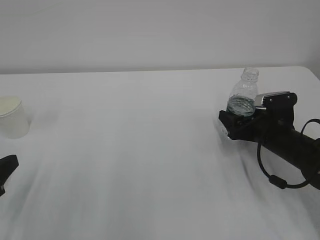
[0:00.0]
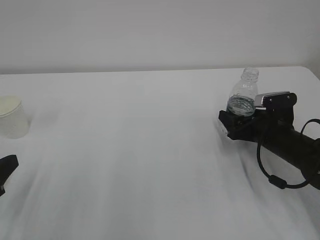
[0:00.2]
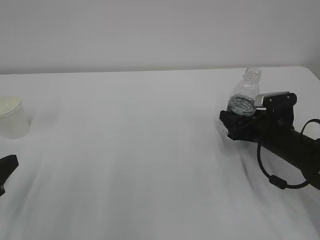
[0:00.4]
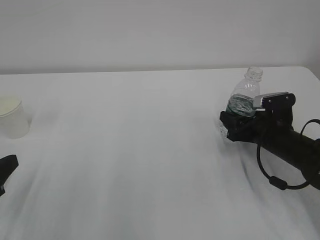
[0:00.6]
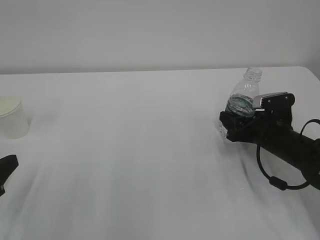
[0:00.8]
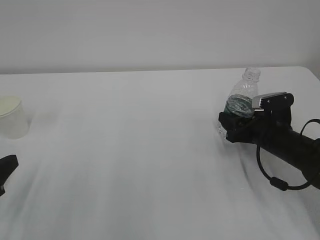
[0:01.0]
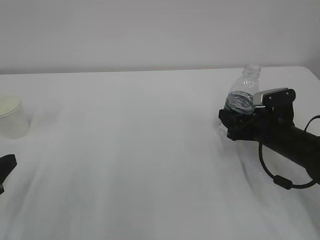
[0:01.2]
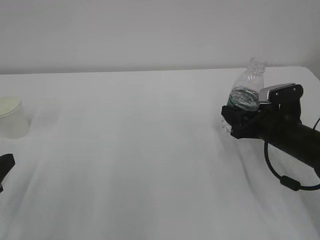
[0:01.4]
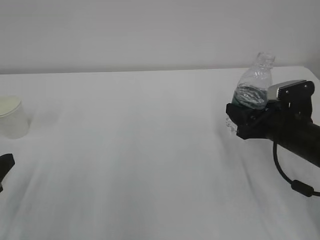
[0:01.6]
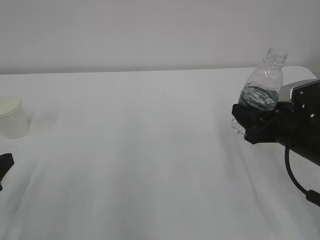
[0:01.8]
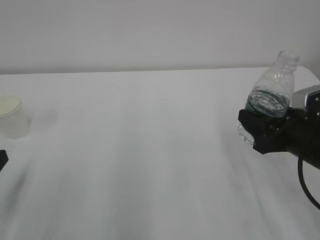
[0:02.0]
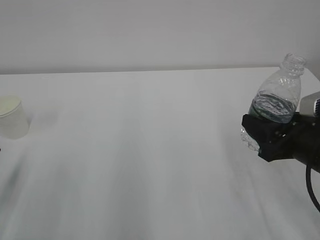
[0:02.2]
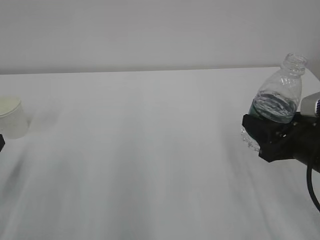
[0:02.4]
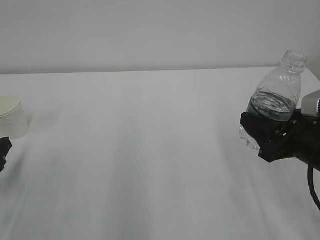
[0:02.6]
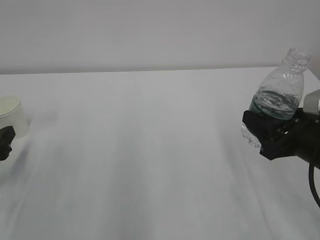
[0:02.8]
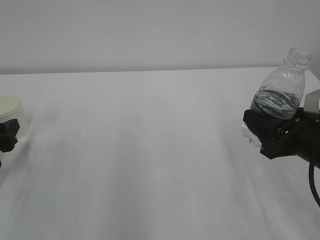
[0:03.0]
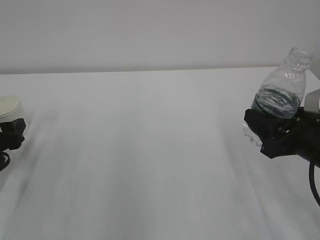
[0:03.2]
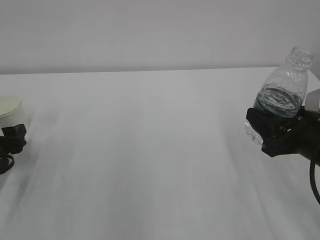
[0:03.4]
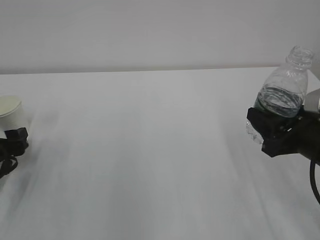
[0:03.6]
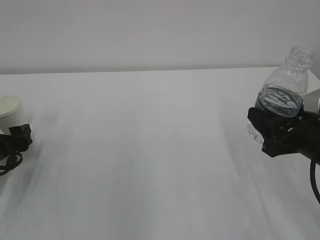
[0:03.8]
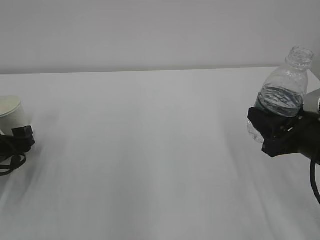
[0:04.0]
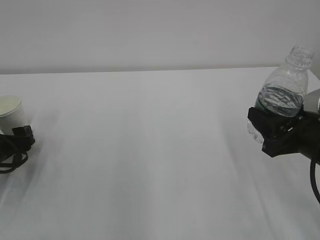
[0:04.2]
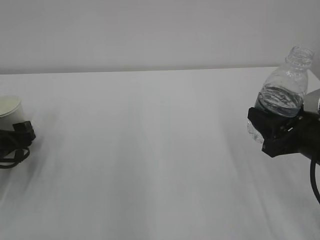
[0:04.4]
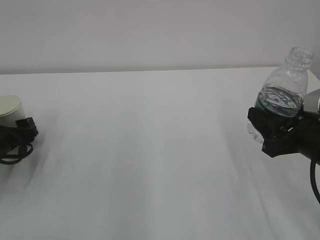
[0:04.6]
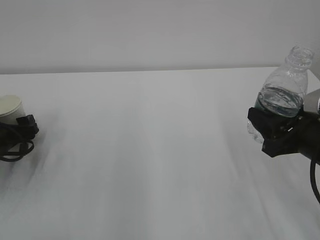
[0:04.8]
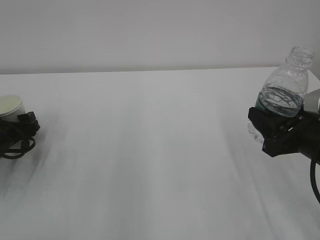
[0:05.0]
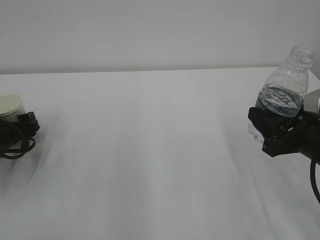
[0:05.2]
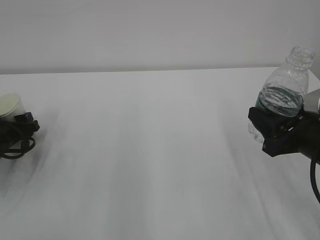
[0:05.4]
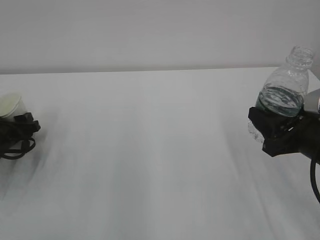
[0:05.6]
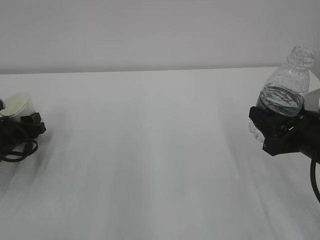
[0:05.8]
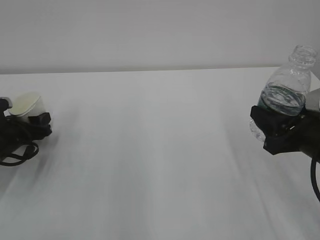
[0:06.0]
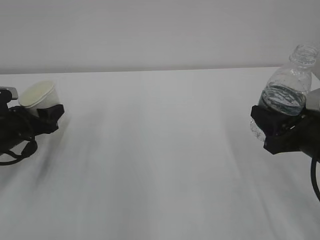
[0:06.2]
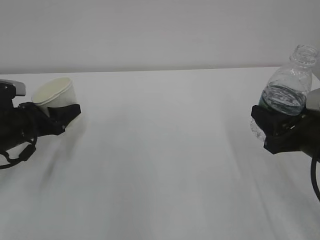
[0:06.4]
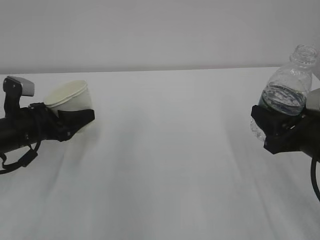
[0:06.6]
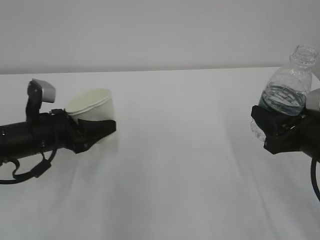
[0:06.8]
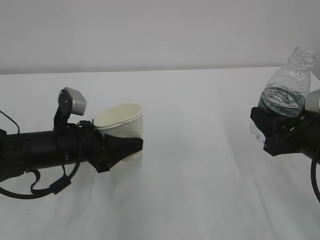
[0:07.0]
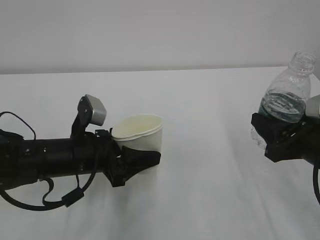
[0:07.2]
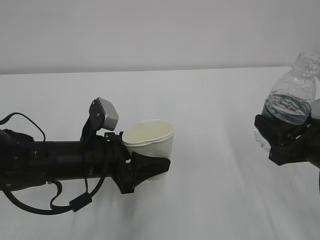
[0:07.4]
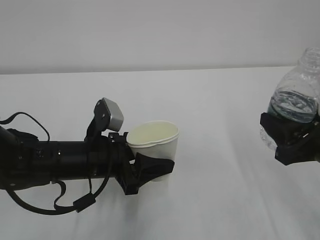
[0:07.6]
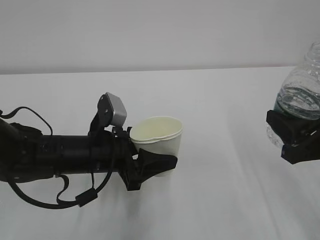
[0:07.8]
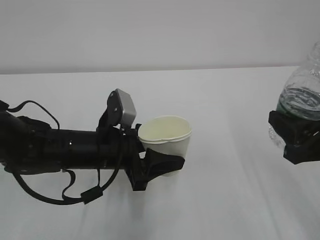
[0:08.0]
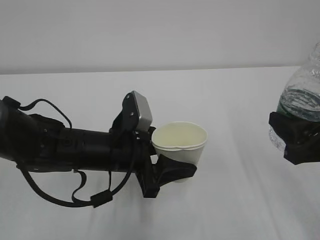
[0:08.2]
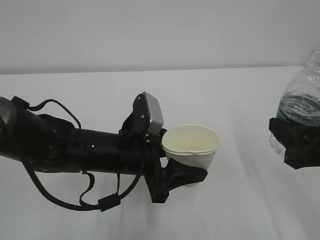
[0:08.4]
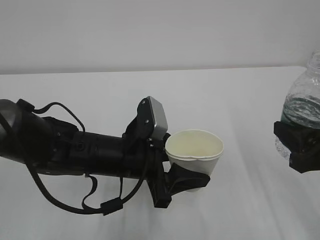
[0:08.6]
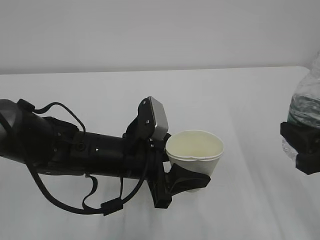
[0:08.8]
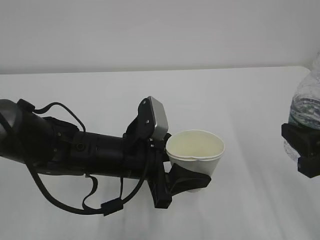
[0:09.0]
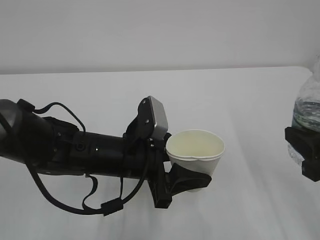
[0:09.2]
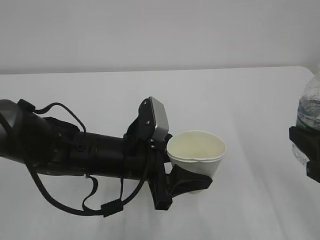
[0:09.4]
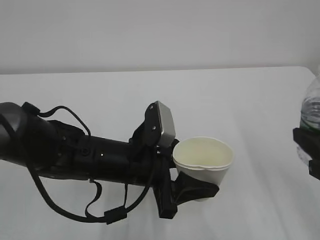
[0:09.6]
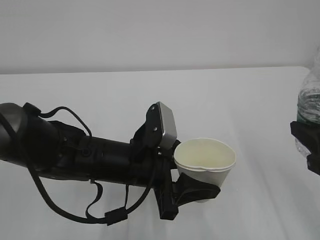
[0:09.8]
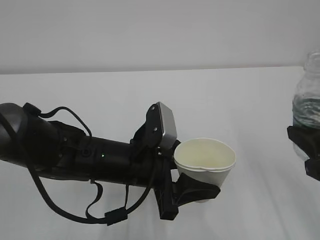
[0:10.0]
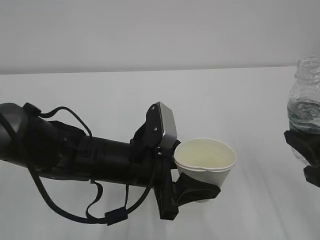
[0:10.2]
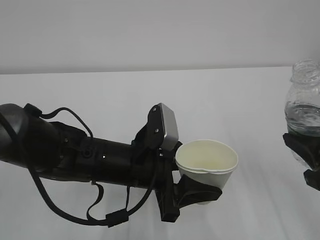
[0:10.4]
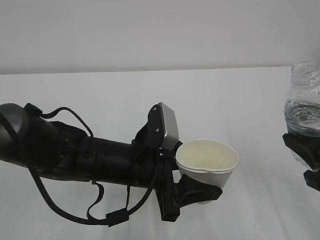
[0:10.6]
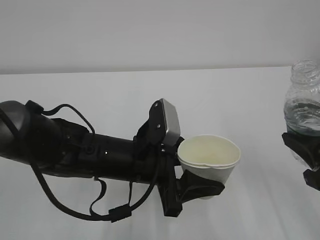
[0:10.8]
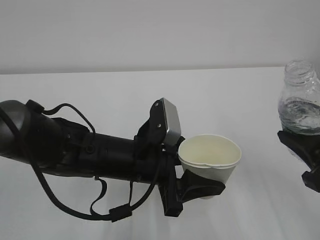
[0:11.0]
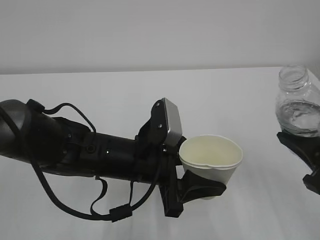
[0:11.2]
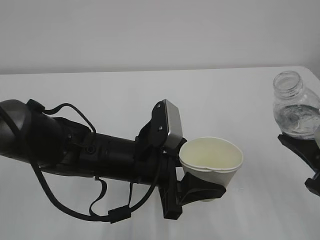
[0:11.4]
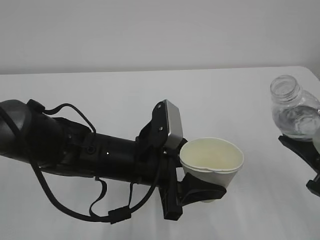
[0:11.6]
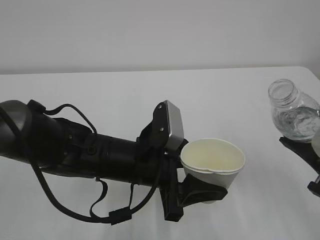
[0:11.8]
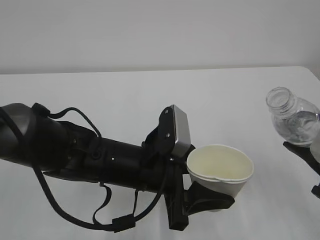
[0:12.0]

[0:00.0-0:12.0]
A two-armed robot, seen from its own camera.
0:00.0 to 0:01.6: The right gripper shifts by about 5 cm, and closes its fingers.
0:01.6 to 0:03.0: The right gripper shifts roughly 10 cm backward. Meanwhile the left gripper goes roughly 10 cm forward, and opens.
0:03.0 to 0:04.4: The left gripper goes some 10 cm forward and downward.
0:04.4 to 0:06.0: The left gripper closes its fingers.
0:06.0 to 0:07.6: The left gripper heads to the right and backward, covering approximately 20 cm.
0:07.6 to 0:09.0: The left gripper heads to the right, covering about 5 cm.
0:09.0 to 0:10.4: There are only small adjustments of the grippers.

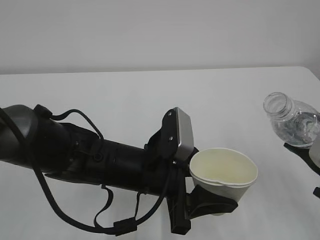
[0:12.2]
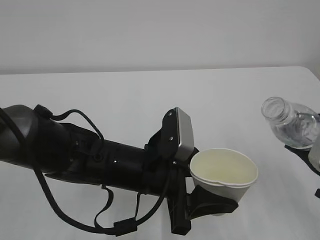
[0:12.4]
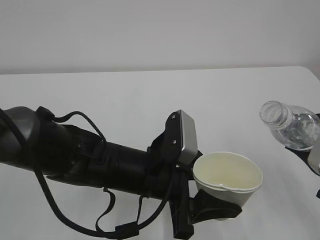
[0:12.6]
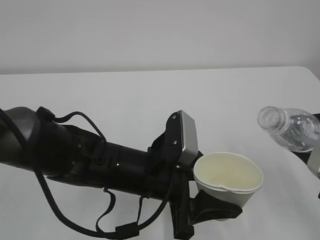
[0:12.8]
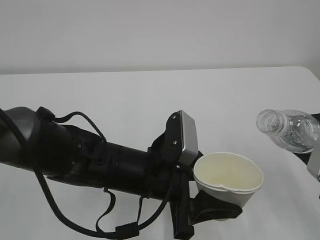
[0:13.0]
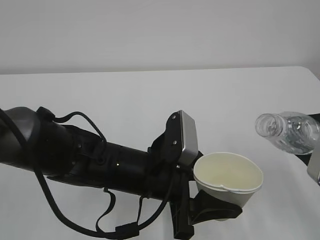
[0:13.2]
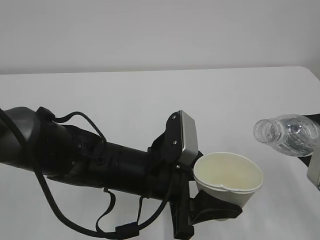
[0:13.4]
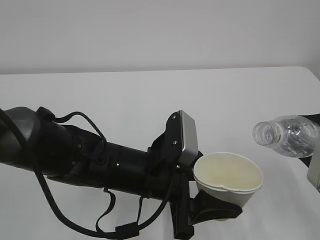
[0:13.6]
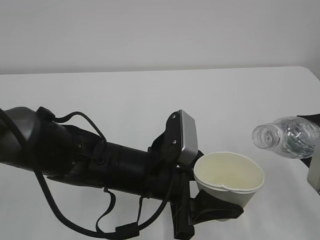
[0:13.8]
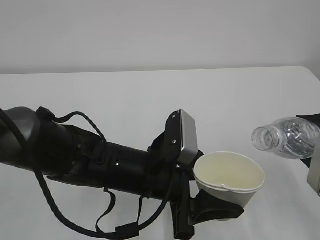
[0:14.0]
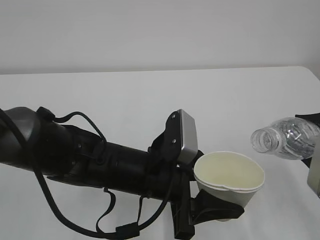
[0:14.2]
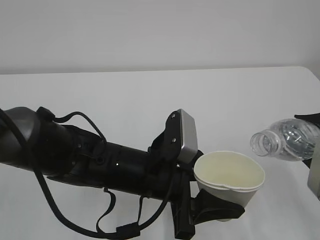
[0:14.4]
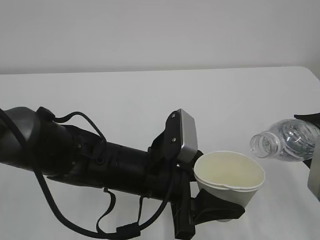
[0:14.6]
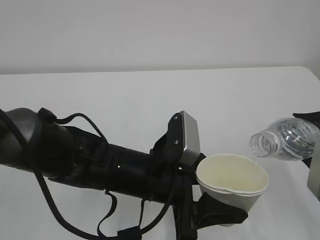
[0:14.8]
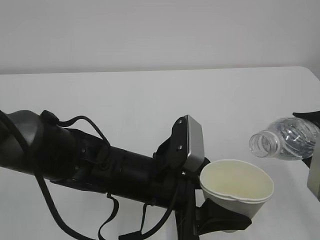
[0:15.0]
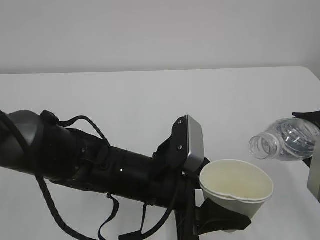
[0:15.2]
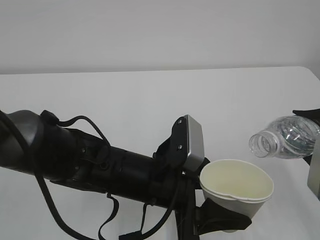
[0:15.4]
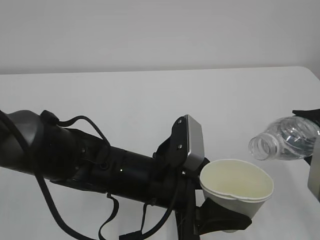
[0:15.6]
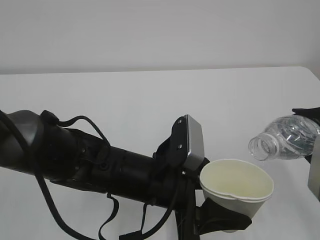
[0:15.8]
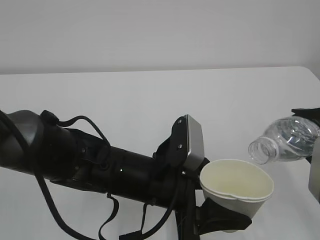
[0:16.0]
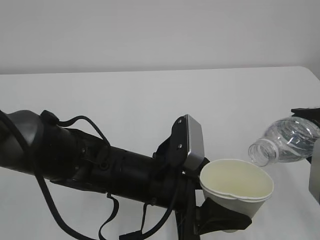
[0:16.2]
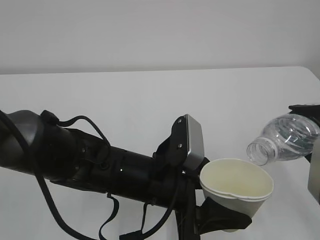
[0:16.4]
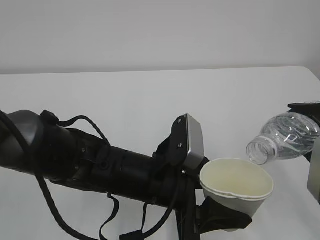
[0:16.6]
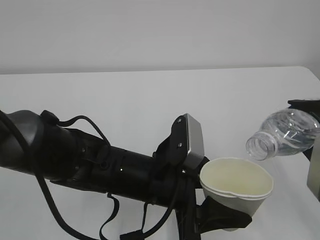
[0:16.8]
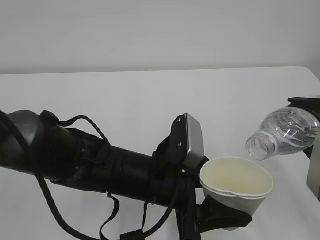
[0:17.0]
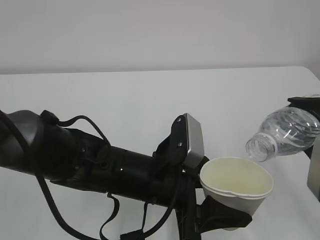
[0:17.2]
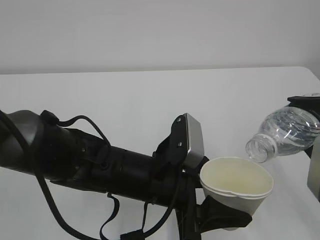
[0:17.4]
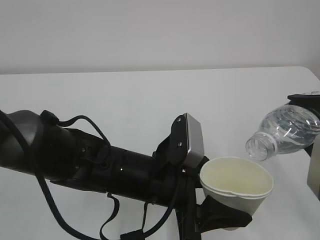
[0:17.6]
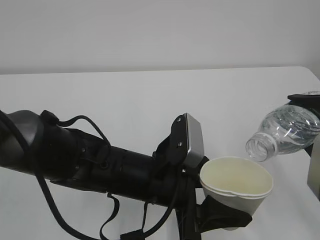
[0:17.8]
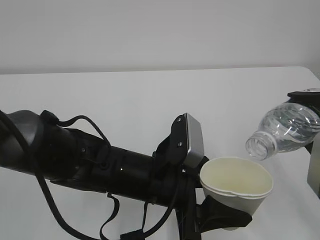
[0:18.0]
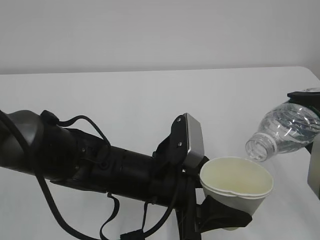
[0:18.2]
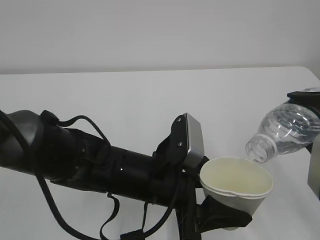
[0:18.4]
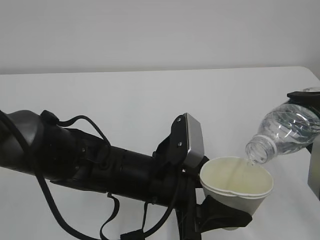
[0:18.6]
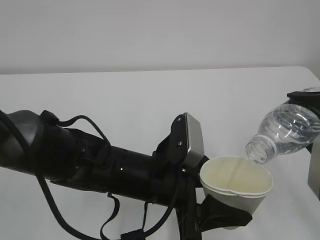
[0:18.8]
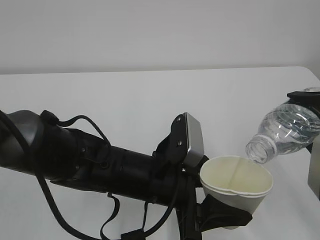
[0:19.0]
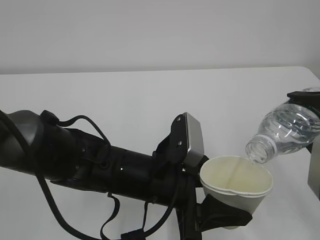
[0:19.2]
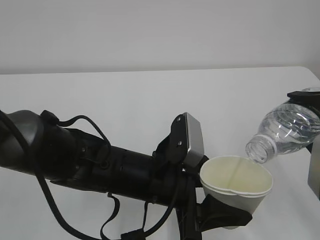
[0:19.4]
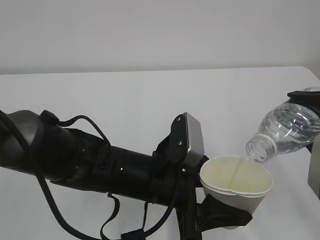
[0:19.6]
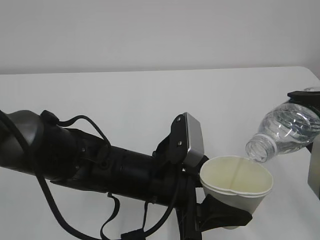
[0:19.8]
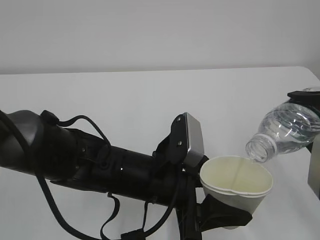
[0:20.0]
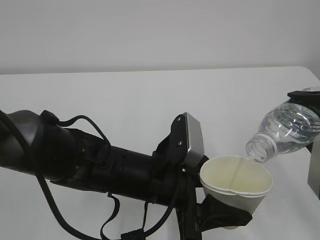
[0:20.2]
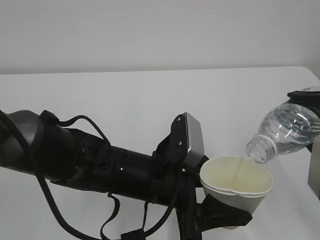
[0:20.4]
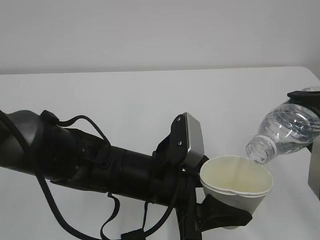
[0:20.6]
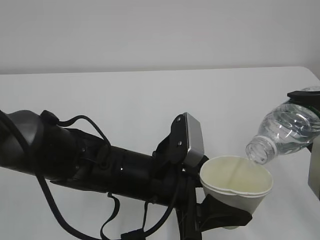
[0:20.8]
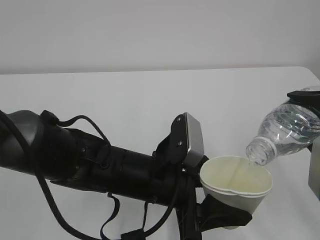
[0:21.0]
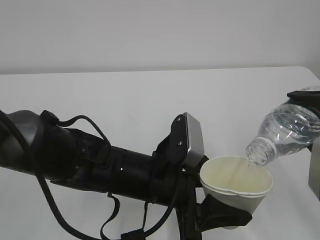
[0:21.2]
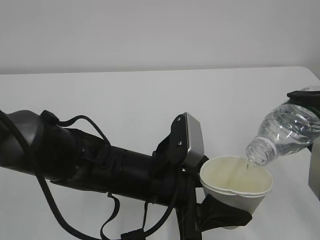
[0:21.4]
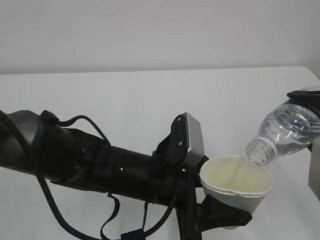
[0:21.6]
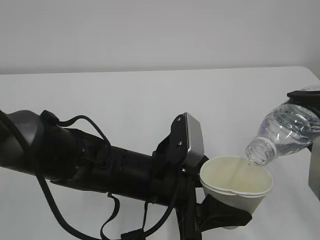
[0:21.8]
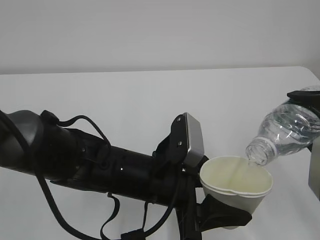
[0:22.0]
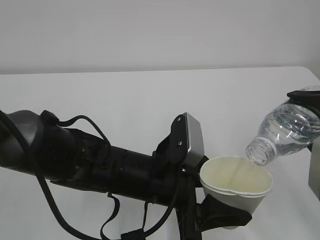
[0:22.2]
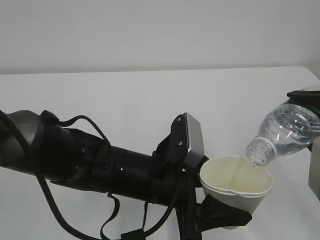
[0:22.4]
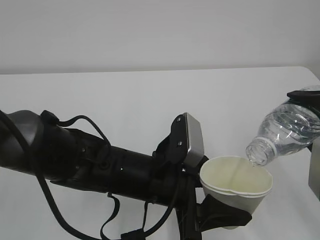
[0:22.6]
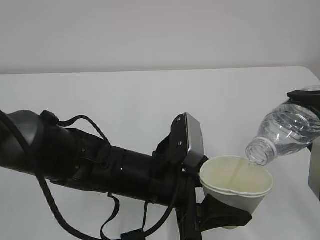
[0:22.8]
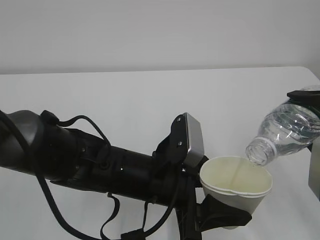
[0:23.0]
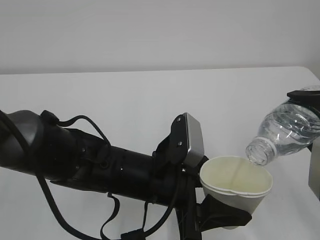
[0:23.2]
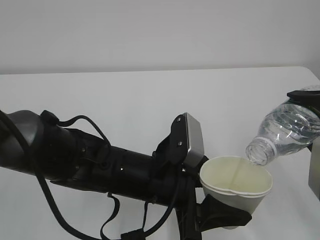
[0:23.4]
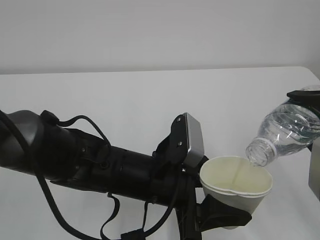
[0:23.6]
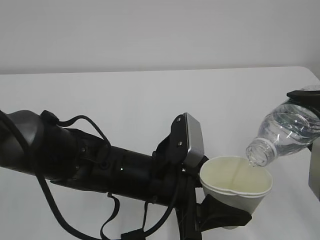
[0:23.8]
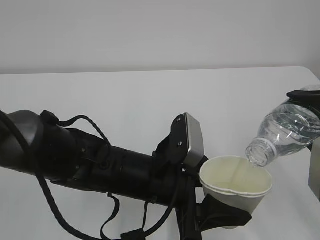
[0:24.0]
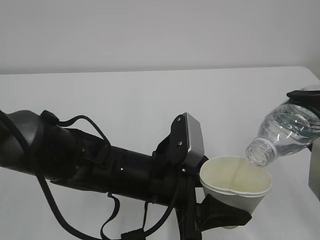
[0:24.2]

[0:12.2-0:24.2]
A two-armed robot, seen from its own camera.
0:12.2 to 0:13.8: The grippers make only small movements.
0:13.8 to 0:16.6: The grippers make only small movements.
0:16.6 to 0:18.2: There are only small adjustments of the grippers.
0:18.2 to 0:24.2: Neither gripper changes place.
